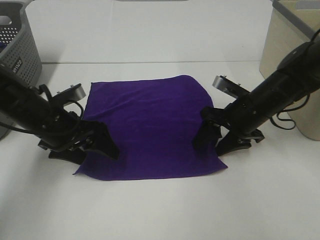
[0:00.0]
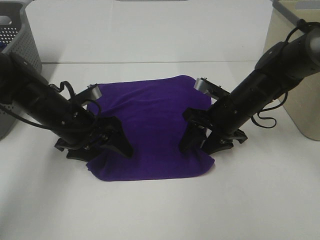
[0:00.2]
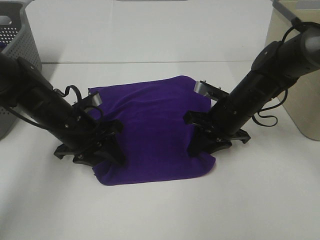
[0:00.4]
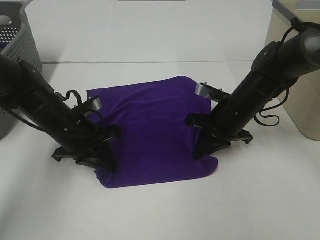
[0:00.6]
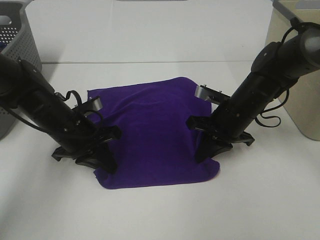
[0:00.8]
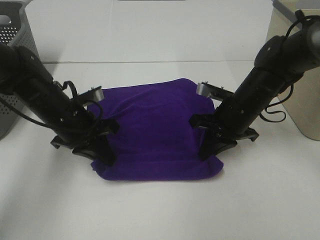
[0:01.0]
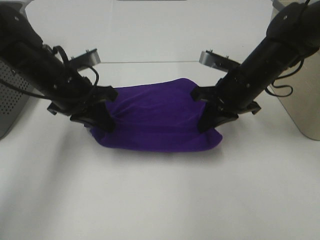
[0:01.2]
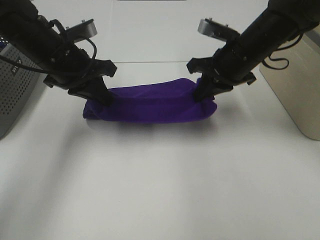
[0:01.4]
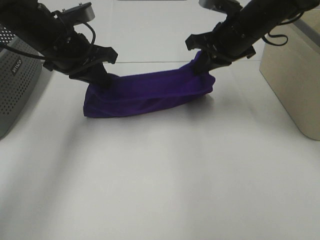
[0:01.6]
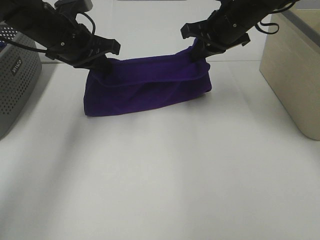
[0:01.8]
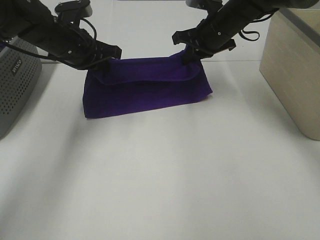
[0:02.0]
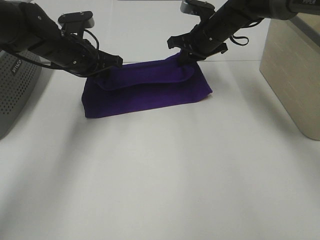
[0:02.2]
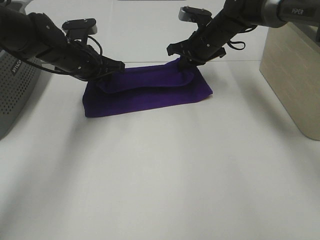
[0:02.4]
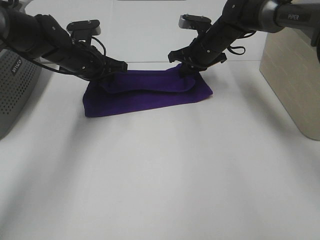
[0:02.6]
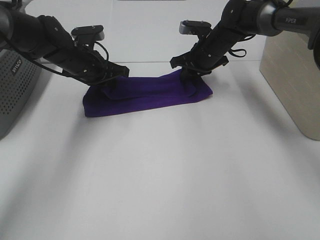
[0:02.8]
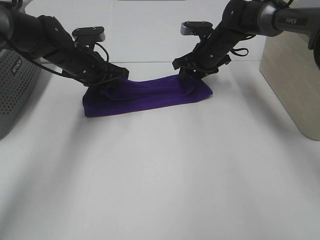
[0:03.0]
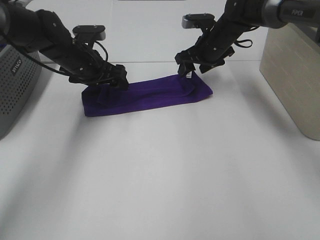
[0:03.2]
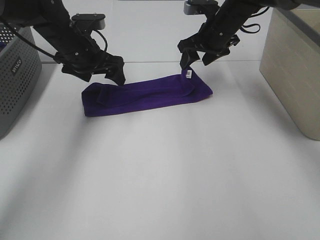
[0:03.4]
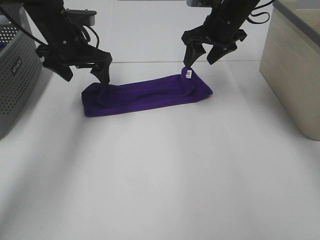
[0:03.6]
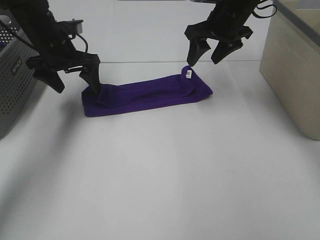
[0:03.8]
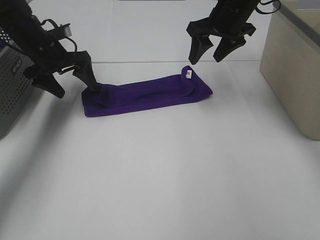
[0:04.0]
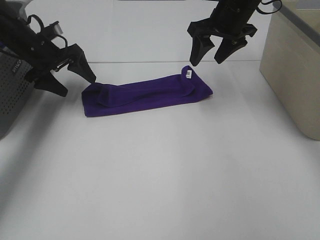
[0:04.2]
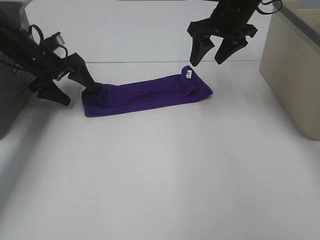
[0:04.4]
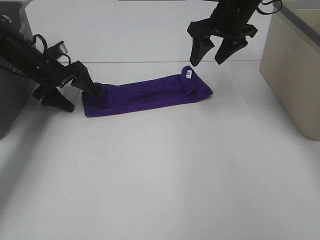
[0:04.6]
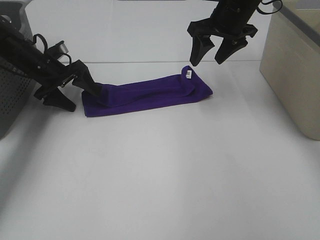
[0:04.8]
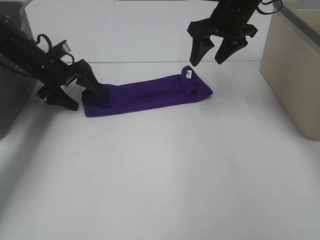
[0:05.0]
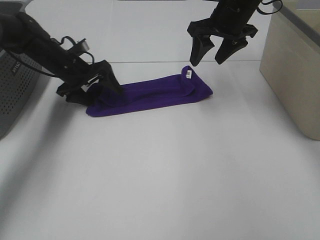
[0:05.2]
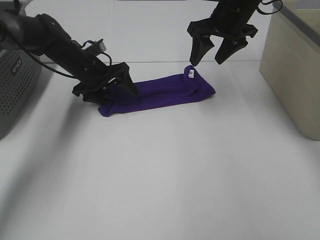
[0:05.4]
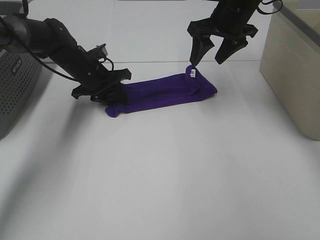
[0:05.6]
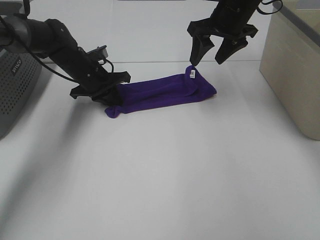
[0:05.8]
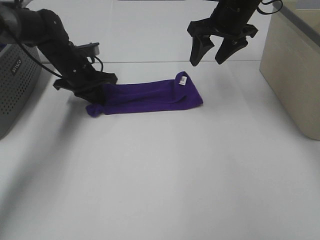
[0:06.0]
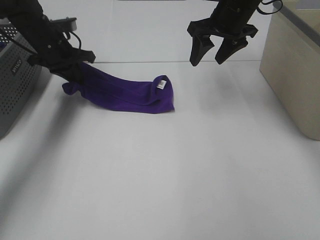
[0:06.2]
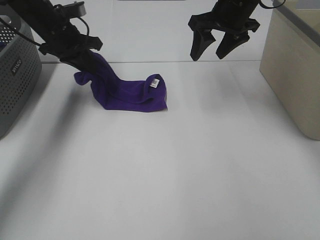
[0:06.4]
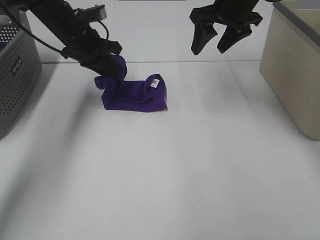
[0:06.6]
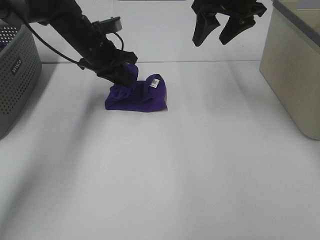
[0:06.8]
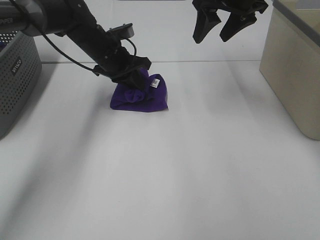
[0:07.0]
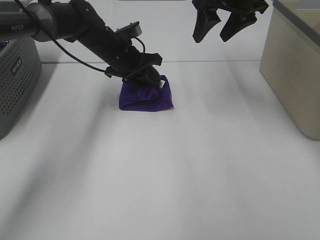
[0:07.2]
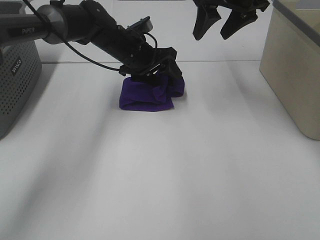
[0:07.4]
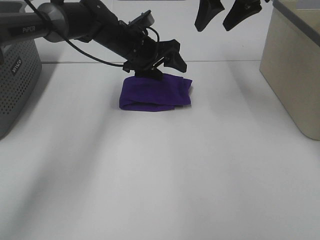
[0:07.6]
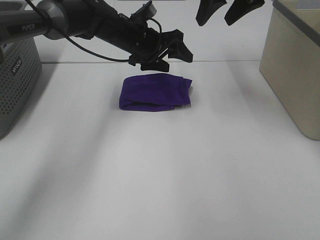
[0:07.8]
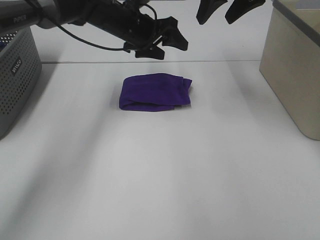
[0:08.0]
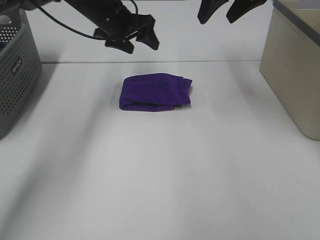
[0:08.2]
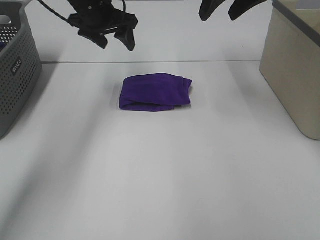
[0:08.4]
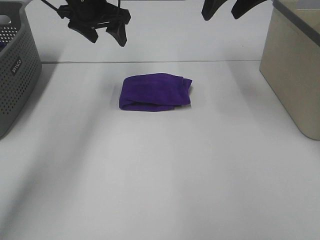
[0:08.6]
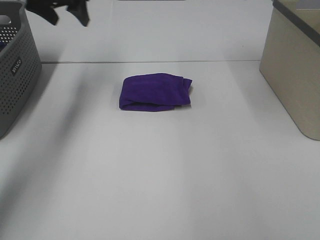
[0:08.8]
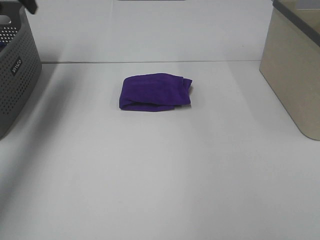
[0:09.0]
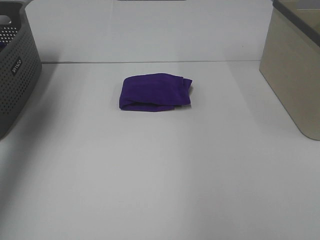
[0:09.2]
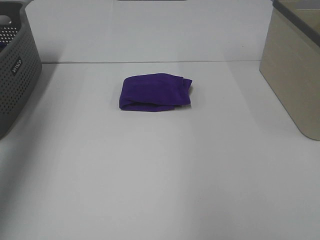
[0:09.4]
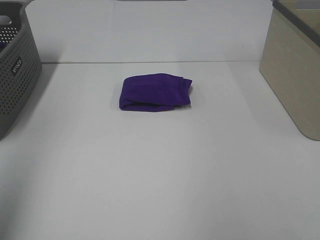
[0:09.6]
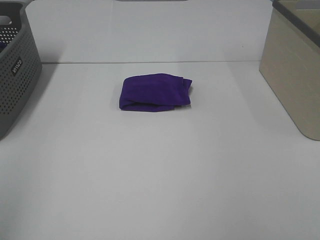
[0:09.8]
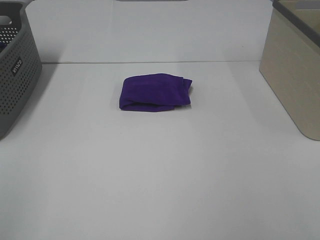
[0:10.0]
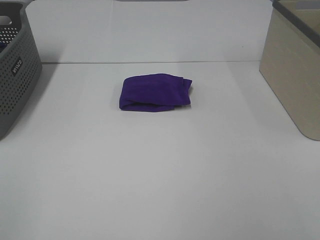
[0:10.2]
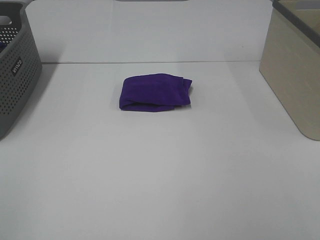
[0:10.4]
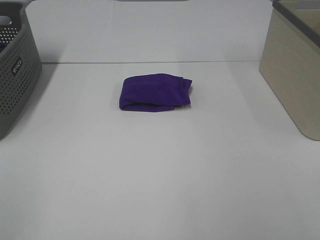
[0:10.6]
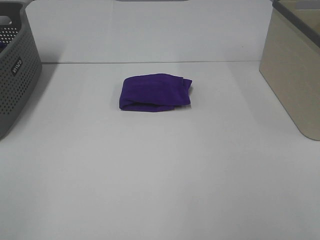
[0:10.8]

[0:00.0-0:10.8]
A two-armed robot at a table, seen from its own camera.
Task of the whole recording: Fold towels.
Step, 0:00.8 to 0:03.0: Left hand: fold the purple towel up.
Step, 0:00.8 to 0:03.0: Right hand: fold the purple towel up.
Step, 0:03.2 to 0:07.2: Left hand: fold the purple towel from left to right.
0:00.0 to 0:01.6: The two grippers go roughly 15 cm upward and forward. The left gripper closes up, while the right gripper closes its fingers.
0:01.6 to 0:03.0: The right gripper shifts approximately 15 cm forward and downward, and opens. The left gripper heads downward and forward, covering roughly 10 cm.
0:03.0 to 0:04.6: The right gripper heads upward and backward, covering approximately 15 cm, while the left gripper goes roughly 10 cm to the left, and opens its fingers.
0:04.6 to 0:06.2: The left gripper heads upward, covering roughly 5 cm, goes to the right and returns, some 10 cm each way, and closes up.
0:06.2 to 0:07.8: The right gripper moves upward, roughly 10 cm. Meanwhile the left gripper goes approximately 20 cm to the right, and opens.
0:07.8 to 0:09.2: The right gripper goes about 20 cm to the right, backward and upward. Meanwhile the left gripper is displaced to the left, upward and backward by approximately 40 cm.
0:09.2 to 0:10.8: The left gripper moves backward, roughly 35 cm.

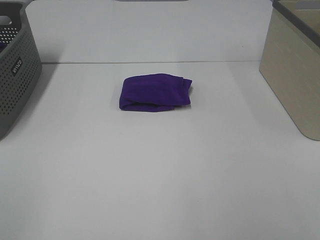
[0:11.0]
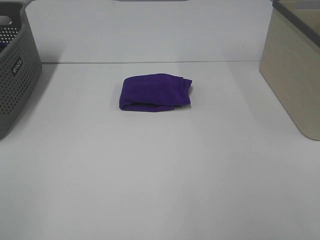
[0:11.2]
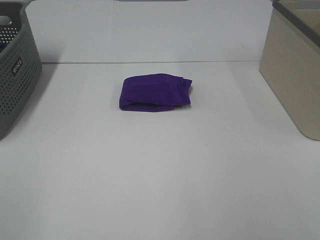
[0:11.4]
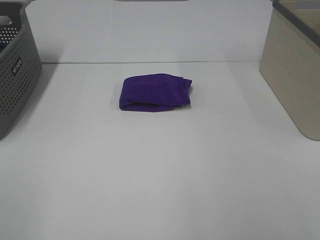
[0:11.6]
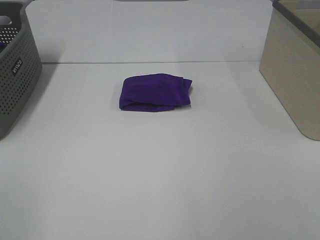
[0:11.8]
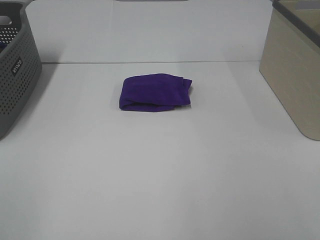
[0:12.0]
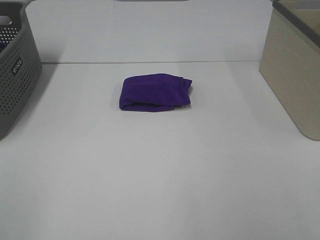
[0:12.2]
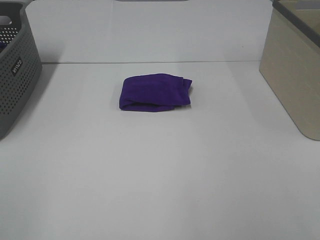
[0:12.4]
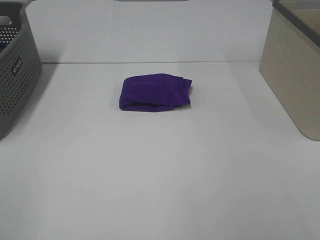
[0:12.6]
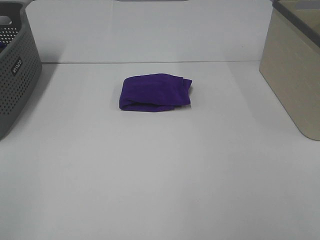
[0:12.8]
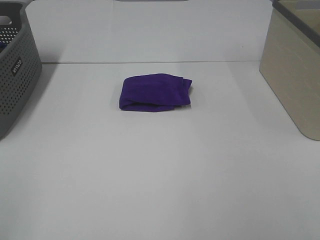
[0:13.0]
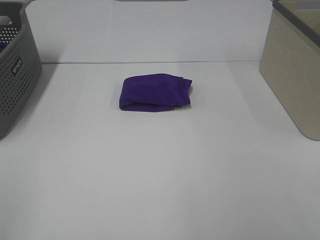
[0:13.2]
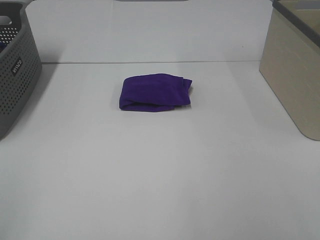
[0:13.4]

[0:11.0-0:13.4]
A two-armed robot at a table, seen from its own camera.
Task of the whole recording: Fold towels.
0:11.0 to 0:12.2: Neither gripper changes place.
